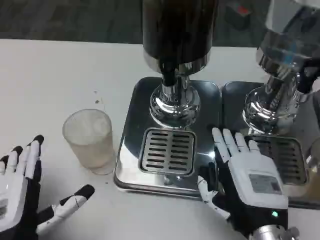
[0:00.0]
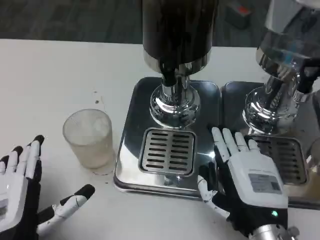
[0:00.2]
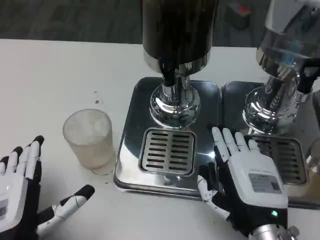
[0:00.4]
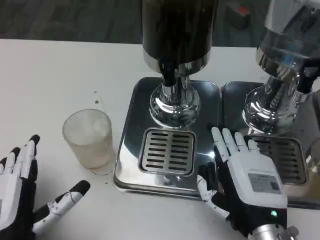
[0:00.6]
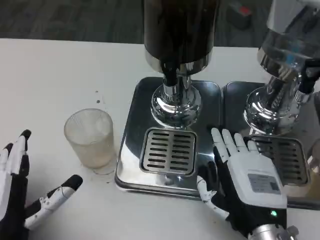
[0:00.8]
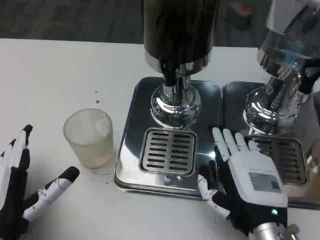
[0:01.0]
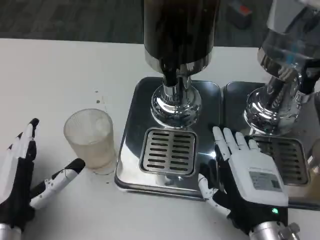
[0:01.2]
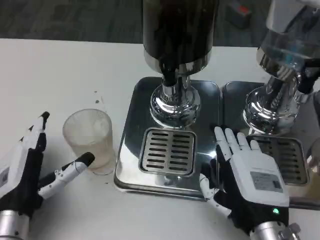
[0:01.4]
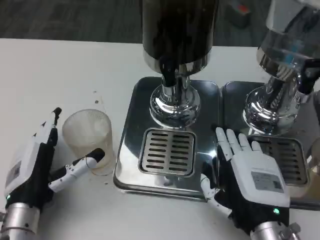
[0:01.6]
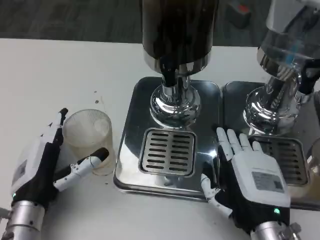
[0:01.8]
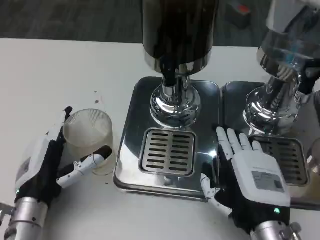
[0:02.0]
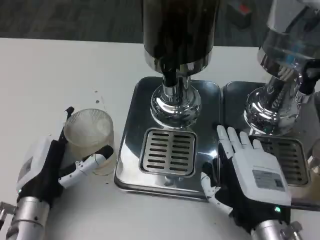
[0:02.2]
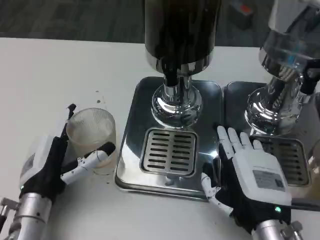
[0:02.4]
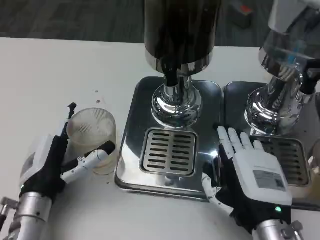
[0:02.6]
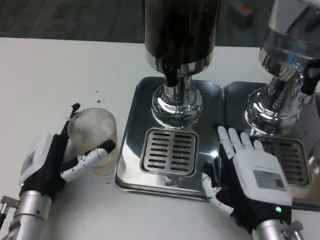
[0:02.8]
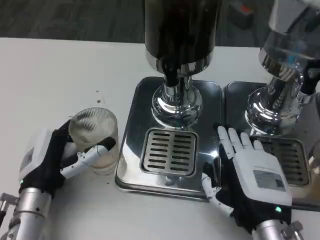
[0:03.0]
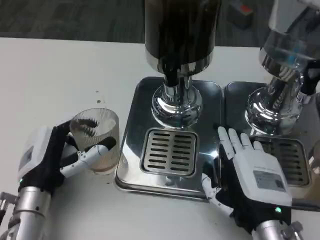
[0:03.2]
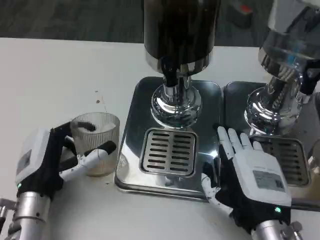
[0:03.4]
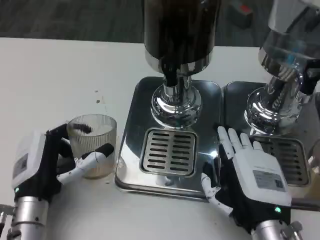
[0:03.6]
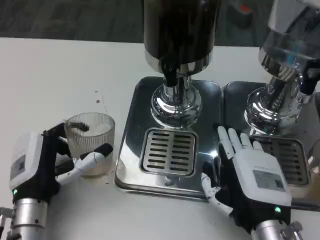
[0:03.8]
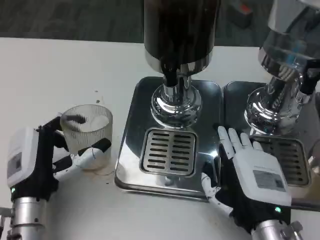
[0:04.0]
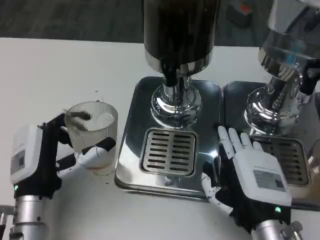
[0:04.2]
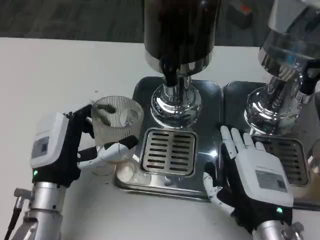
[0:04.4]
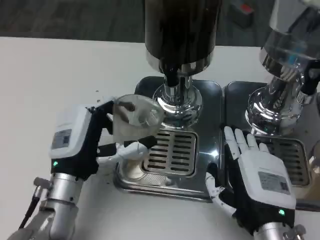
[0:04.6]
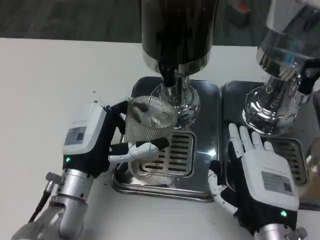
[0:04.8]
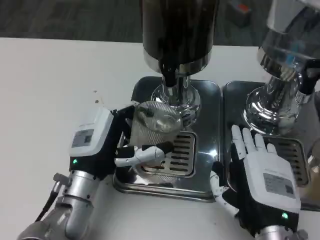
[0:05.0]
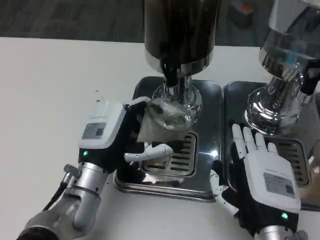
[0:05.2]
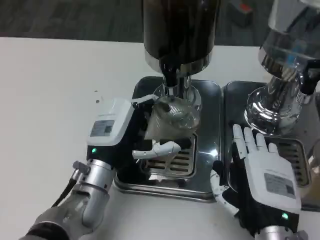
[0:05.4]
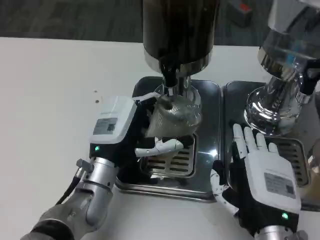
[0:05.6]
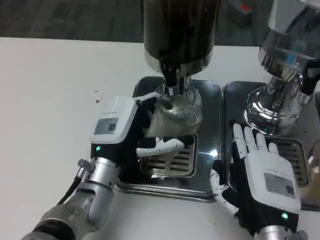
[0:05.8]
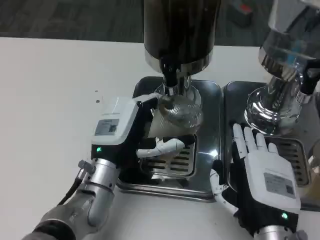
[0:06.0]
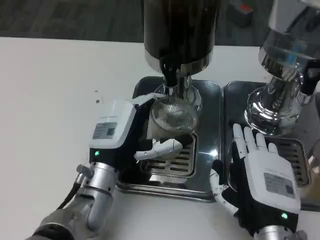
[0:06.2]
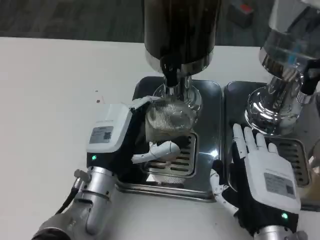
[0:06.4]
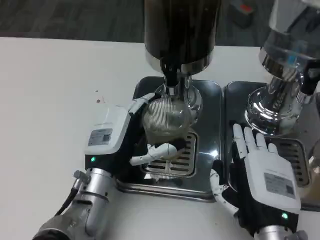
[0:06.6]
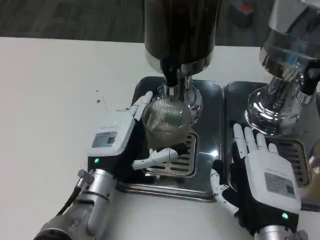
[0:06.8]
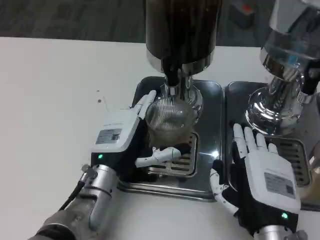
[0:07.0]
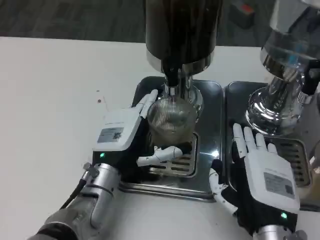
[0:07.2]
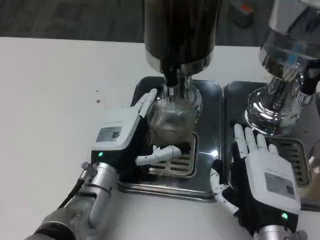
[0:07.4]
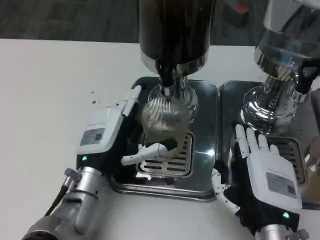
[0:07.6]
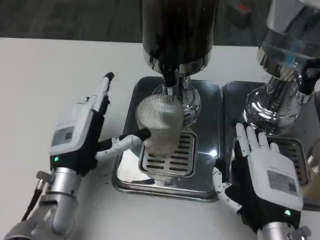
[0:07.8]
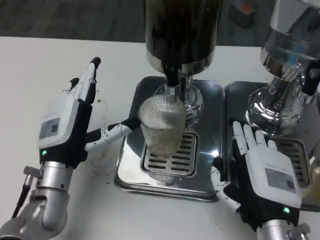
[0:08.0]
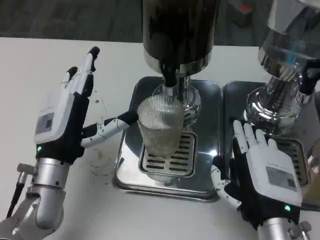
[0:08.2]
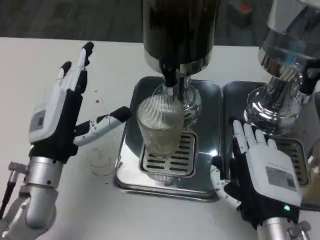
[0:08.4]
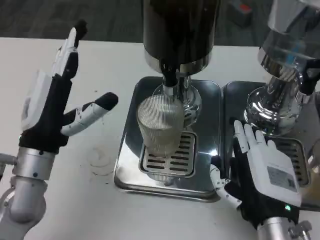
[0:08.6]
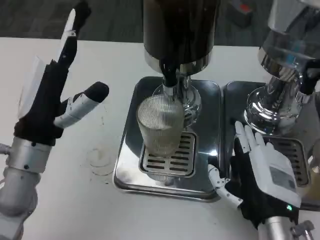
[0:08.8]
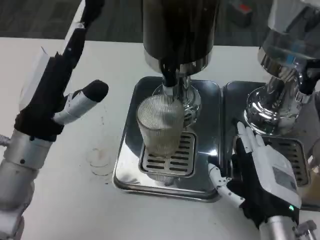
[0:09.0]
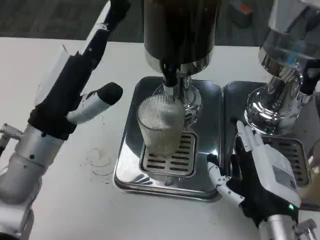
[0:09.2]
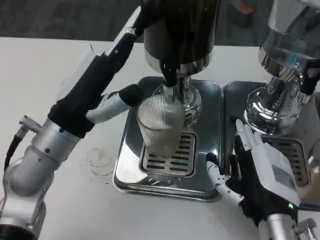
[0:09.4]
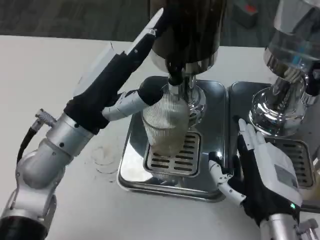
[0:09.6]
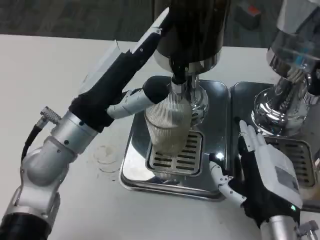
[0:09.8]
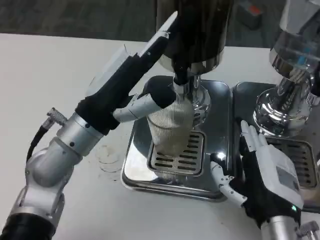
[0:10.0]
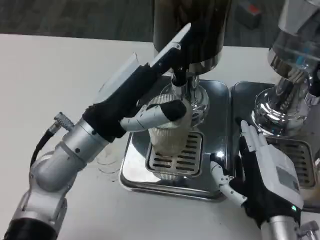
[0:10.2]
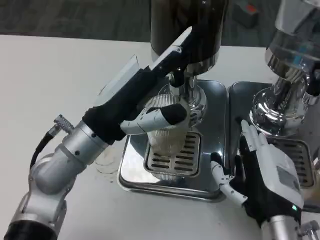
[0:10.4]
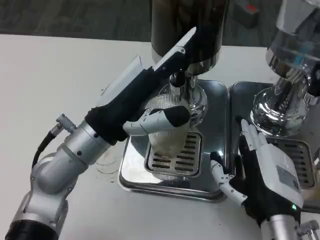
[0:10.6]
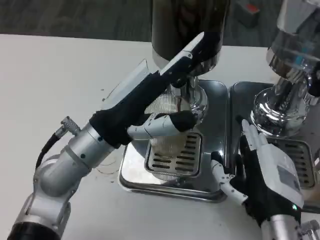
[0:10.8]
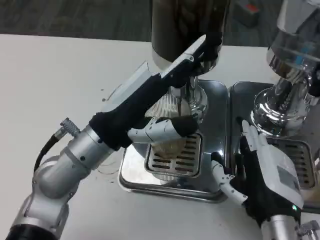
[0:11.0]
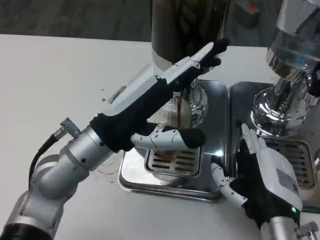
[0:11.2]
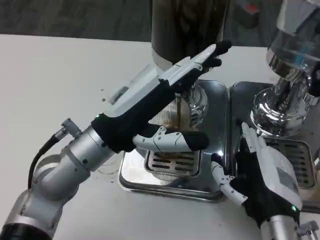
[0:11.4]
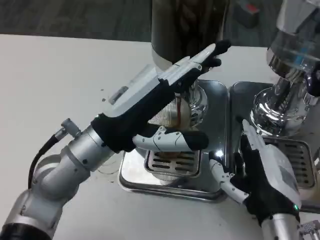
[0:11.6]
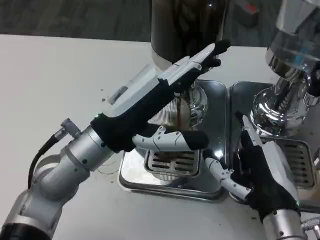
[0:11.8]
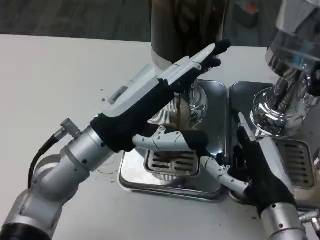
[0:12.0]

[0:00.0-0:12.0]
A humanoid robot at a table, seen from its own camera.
Task of the whole recording: Grasp the cup under the faucet to collect the drink, then remove the cup.
0:00.0 to 0:01.6: The left hand heads forward, covering roughly 10 cm.
0:01.6 to 0:03.0: The hands move only a little.
0:04.4 to 0:06.0: The left hand is displaced to the right by approximately 5 cm.
0:07.6 to 0:09.0: The left hand moves upward and to the left, some 10 cm.
0:09.0 to 0:10.4: The left hand goes about 5 cm to the right.

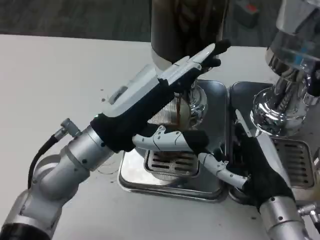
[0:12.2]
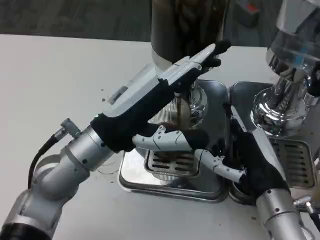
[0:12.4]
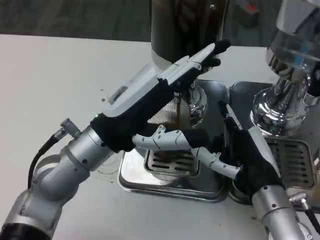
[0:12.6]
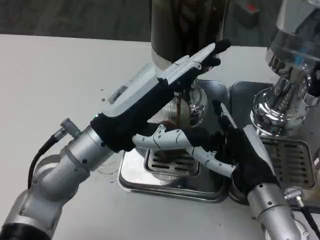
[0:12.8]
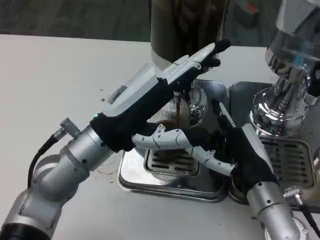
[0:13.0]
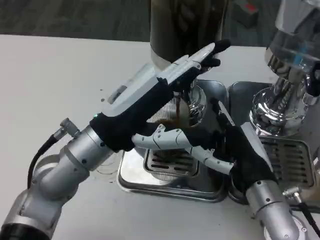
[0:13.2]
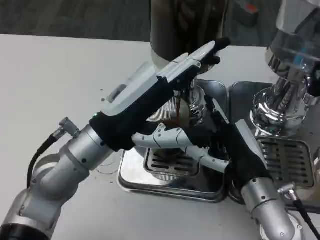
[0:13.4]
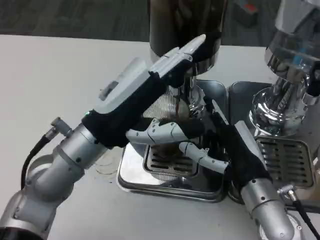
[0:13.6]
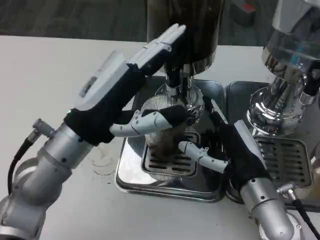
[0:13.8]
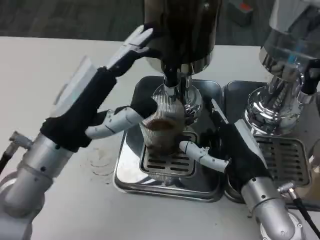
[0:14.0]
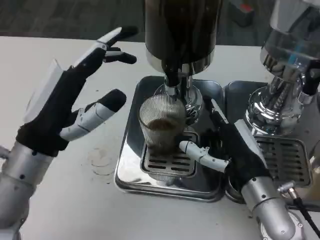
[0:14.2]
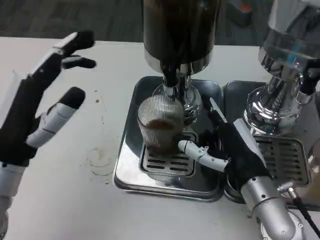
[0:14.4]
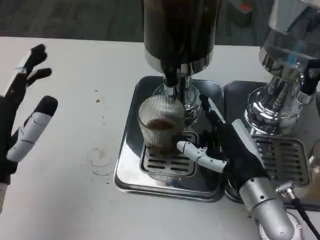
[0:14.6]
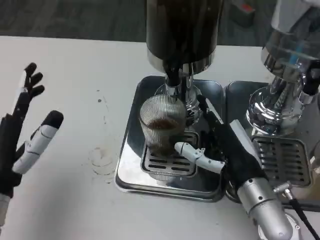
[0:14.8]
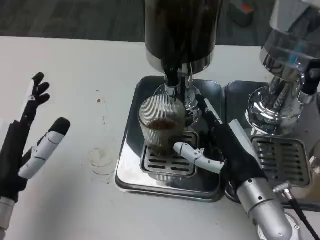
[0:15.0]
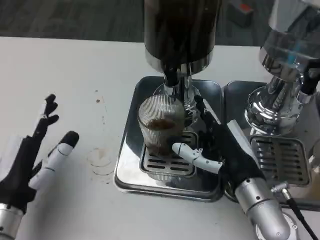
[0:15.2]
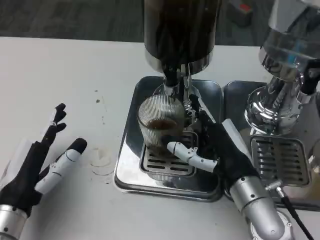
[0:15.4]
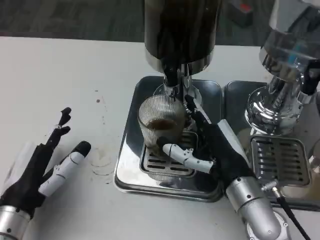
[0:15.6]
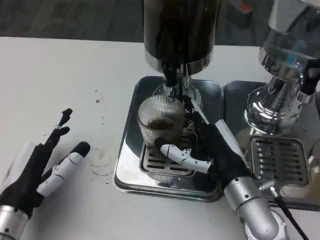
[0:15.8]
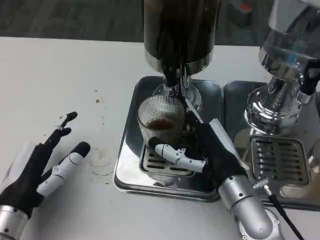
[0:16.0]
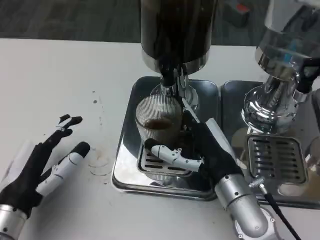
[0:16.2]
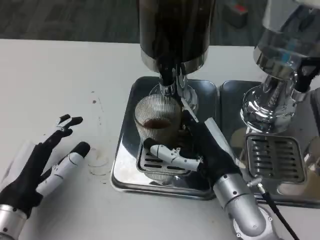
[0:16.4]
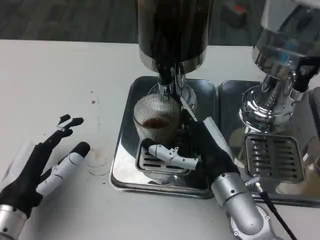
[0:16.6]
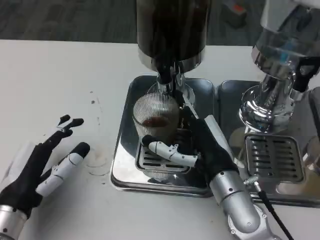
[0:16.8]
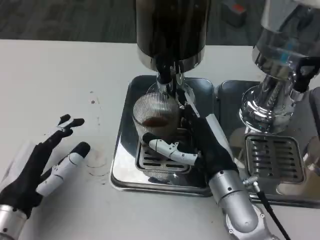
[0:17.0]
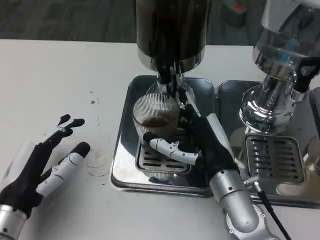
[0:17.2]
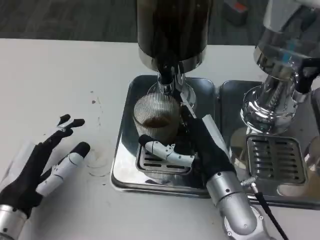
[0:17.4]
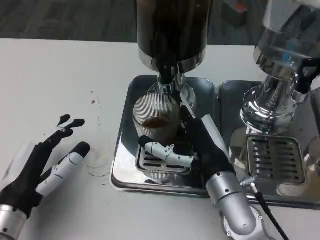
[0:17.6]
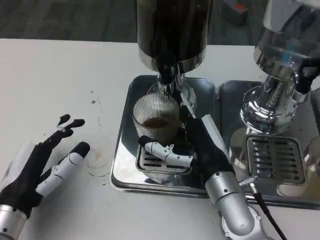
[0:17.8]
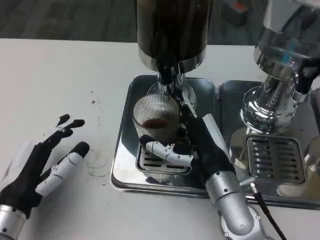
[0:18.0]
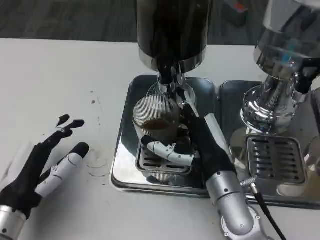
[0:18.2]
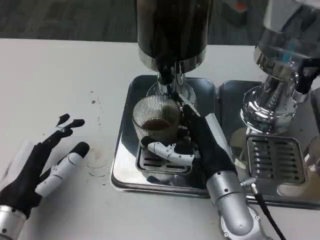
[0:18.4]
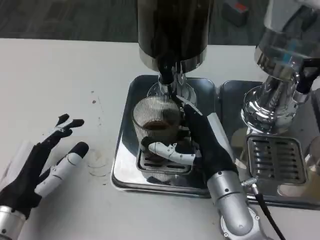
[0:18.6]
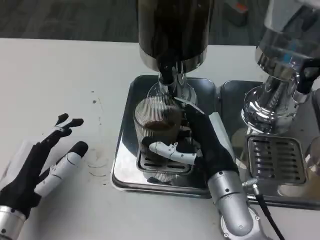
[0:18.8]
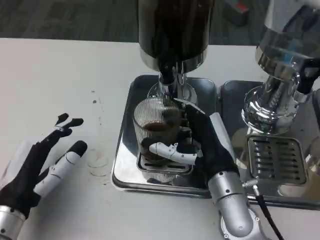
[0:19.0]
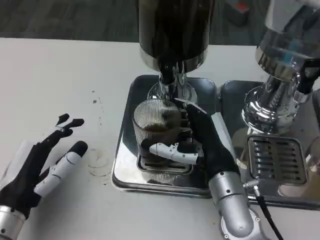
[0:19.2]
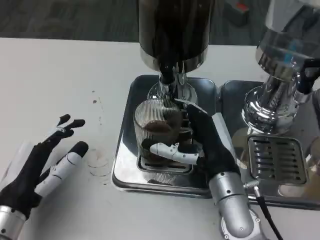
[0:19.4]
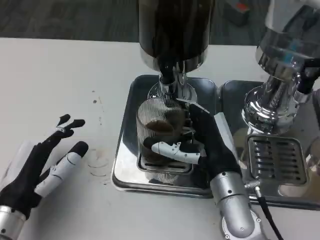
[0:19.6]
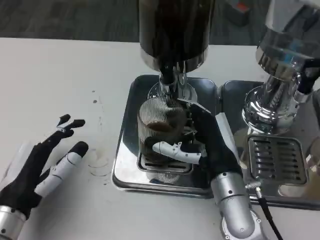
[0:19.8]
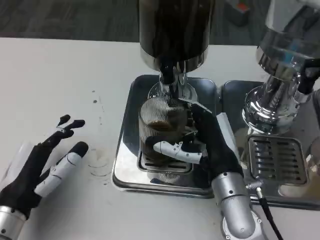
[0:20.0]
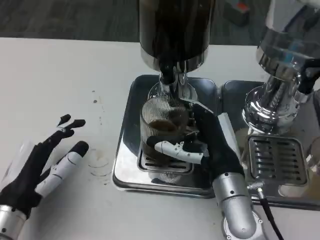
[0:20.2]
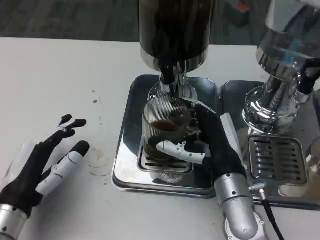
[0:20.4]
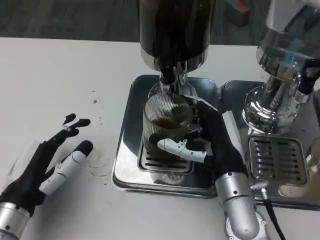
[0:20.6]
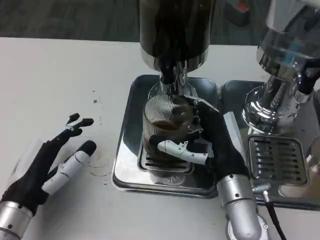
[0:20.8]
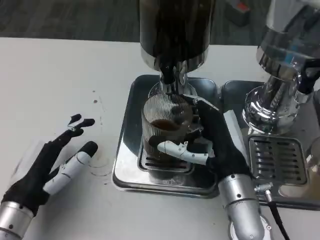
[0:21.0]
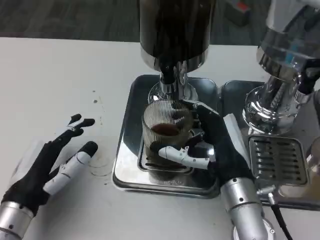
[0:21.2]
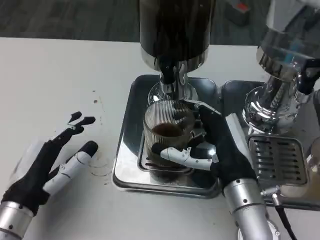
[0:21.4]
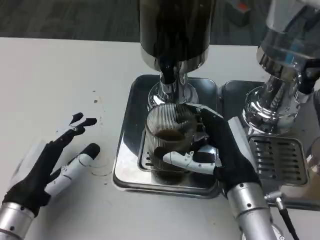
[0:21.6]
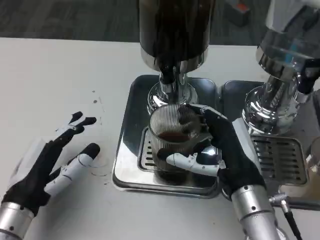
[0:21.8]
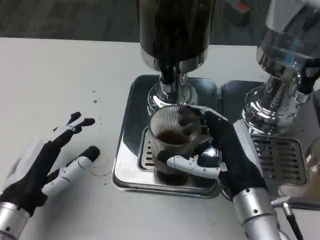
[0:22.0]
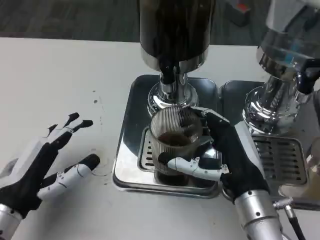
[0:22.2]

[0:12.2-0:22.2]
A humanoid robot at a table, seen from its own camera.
Task of the whole recording: Grasp the cup under the faucet to collect the drink, then remove the cup.
0:13.6 to 0:15.0: The left hand shifts some 15 cm to the left, backward and downward.
0:16.4 to 0:19.4: The hands stay close to where they were, moving slightly.
0:19.4 to 0:20.8: Both hands stay about where they are.
0:20.8 to 0:22.2: The hands stay close to where they were, moving slightly.
